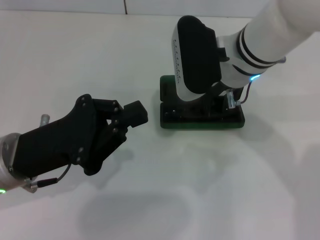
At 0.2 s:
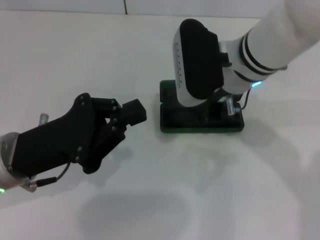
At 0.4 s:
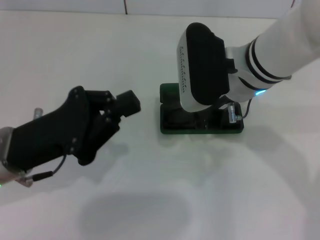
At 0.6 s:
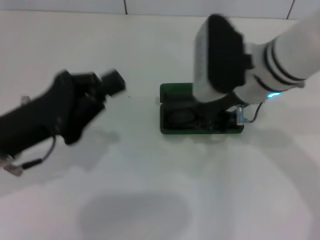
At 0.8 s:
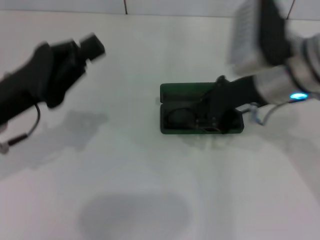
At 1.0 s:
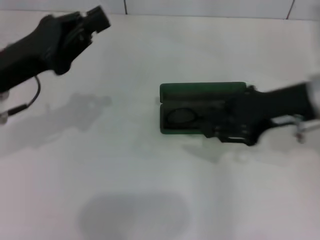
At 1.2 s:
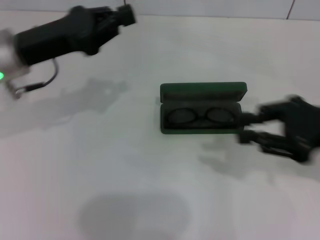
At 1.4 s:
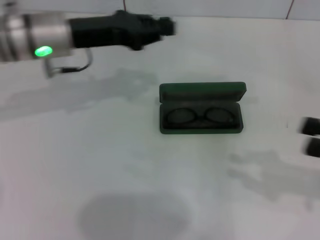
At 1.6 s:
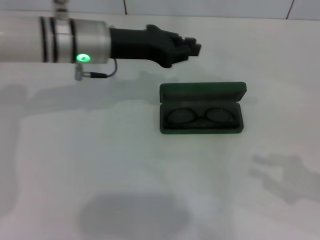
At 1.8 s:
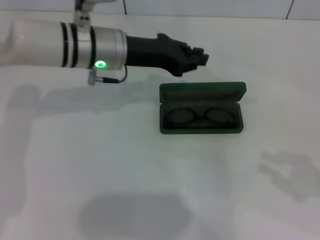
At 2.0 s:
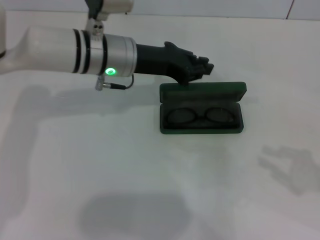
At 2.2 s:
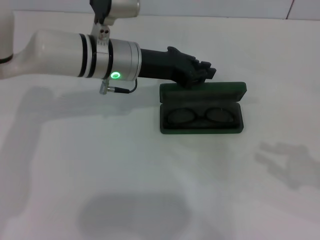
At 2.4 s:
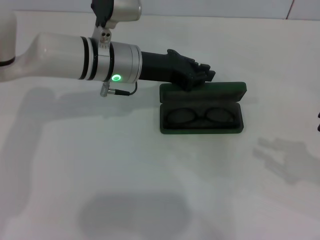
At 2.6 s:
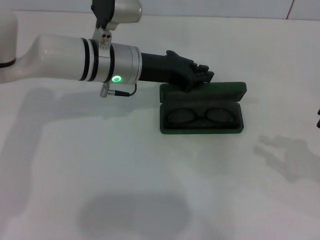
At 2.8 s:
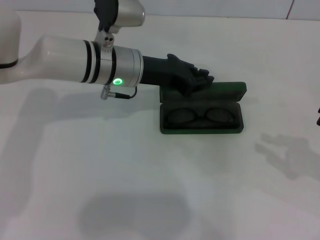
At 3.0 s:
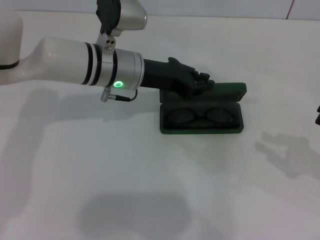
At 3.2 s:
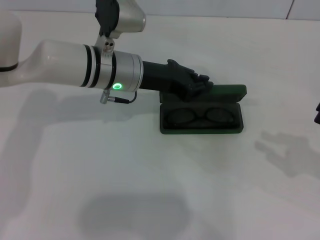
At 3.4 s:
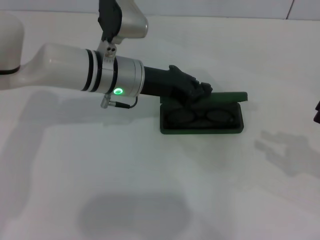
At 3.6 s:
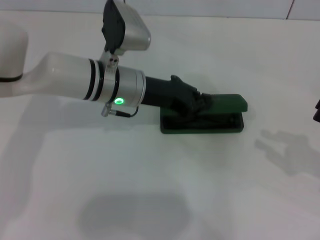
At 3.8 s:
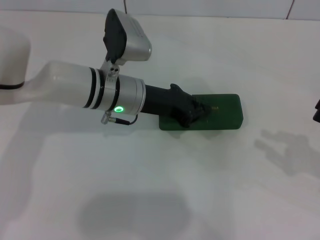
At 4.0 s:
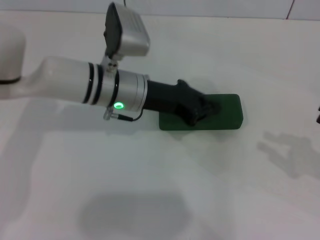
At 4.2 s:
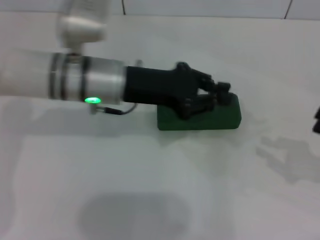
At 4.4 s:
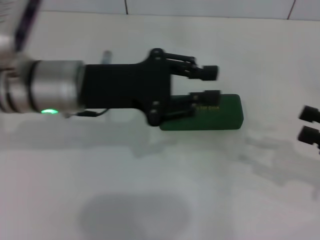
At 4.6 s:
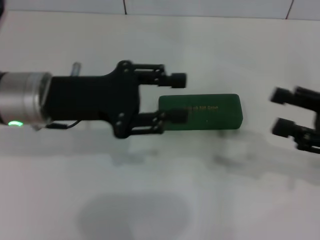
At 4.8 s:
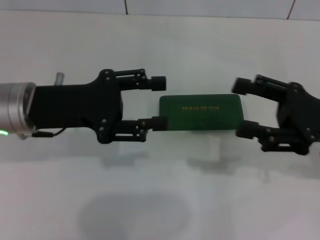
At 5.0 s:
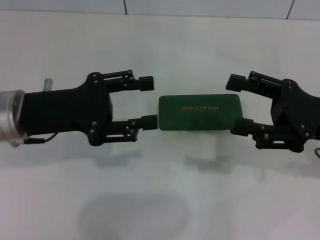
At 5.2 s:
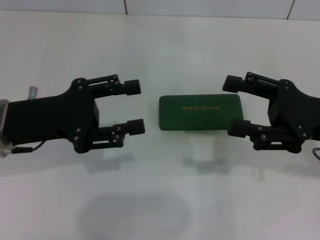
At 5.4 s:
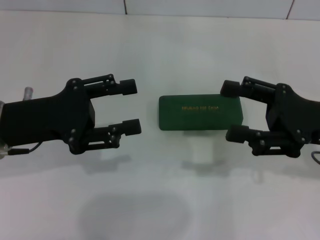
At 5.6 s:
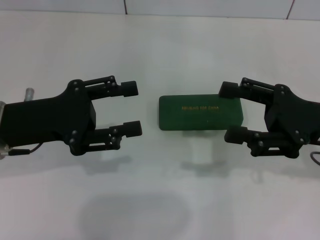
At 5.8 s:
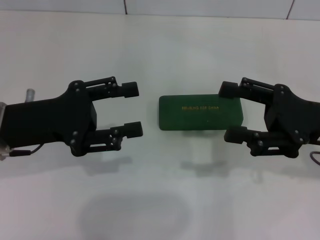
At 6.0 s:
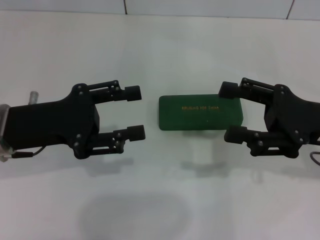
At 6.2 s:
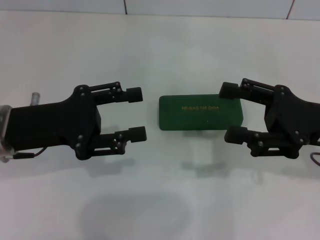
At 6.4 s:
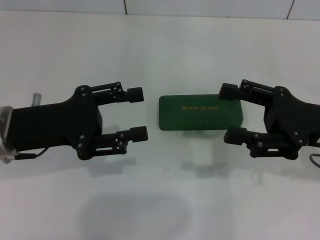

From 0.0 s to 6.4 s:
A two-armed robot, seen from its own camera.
Step, from 0.6 s to 3.6 s: Close the glasses case with your left hand.
From 0.0 s to 1.6 s: The right gripper heads to the right and backward, covering approximately 35 cm. The left gripper is displaced forward and to the right by roughly 20 cm.
From 1.6 s to 3.2 s: The left gripper changes place by approximately 5 cm.
From 3.2 s to 4.8 s: The right gripper goes roughly 10 cm to the left, and opens its fingers. Meanwhile the left gripper moves to the left and backward, approximately 15 cm, and opens its fingers.
From 4.8 s to 6.4 s: The grippers move only a little.
